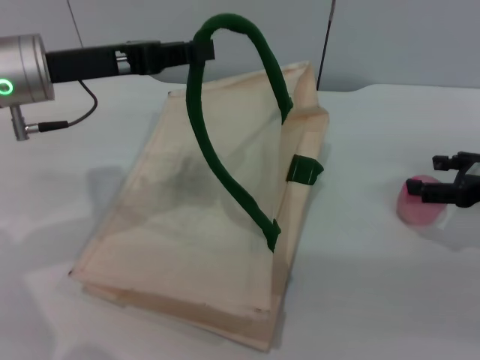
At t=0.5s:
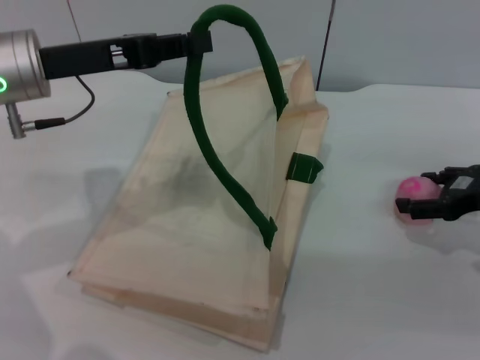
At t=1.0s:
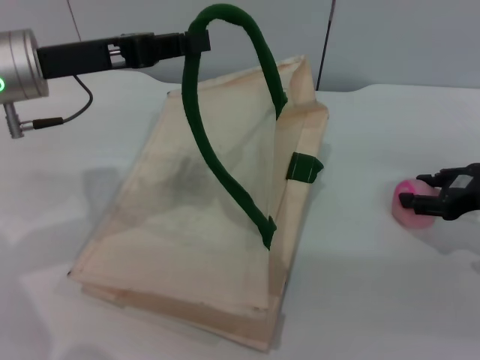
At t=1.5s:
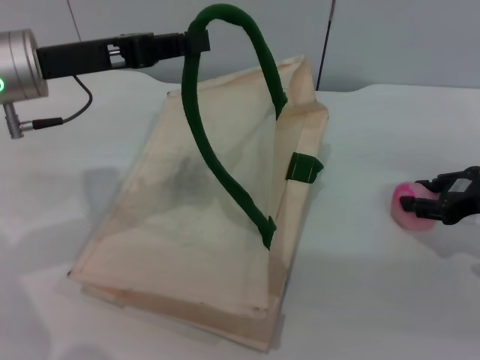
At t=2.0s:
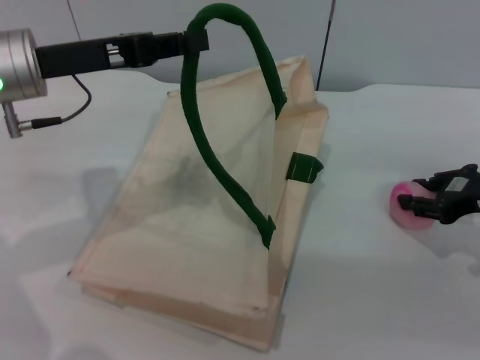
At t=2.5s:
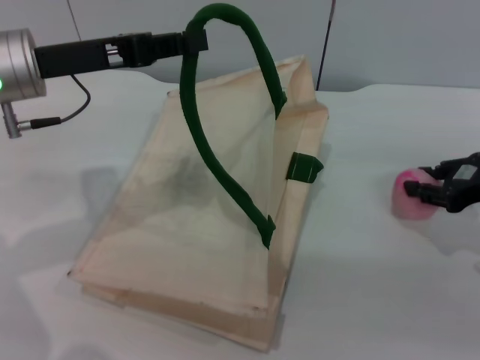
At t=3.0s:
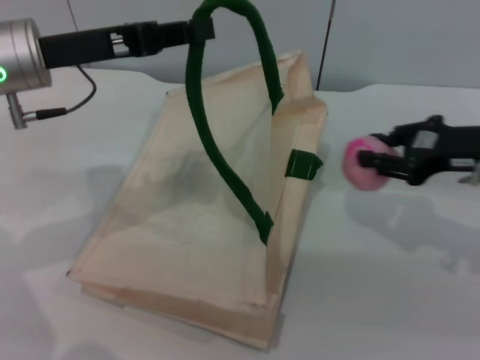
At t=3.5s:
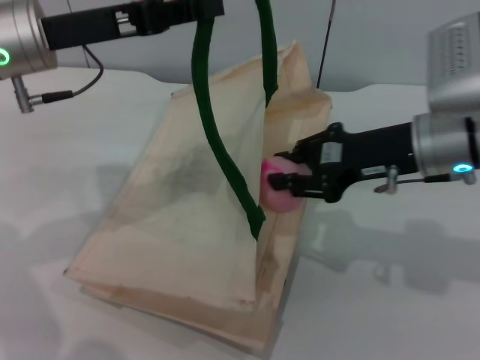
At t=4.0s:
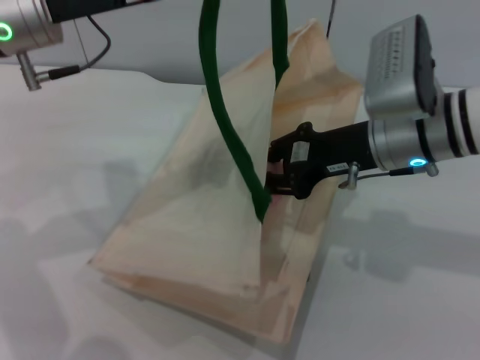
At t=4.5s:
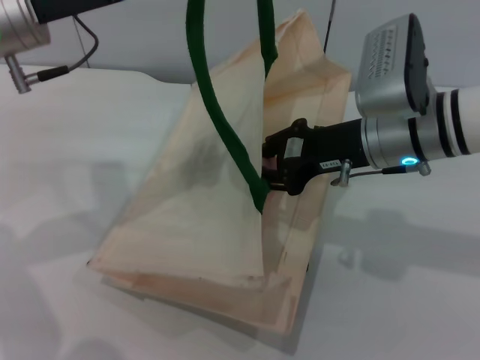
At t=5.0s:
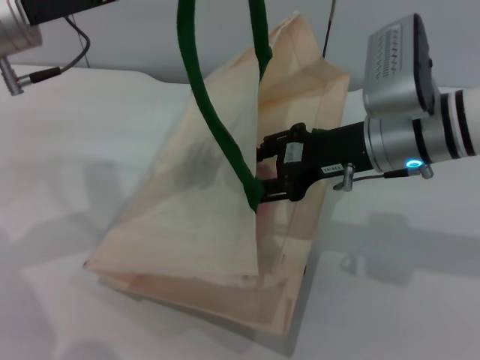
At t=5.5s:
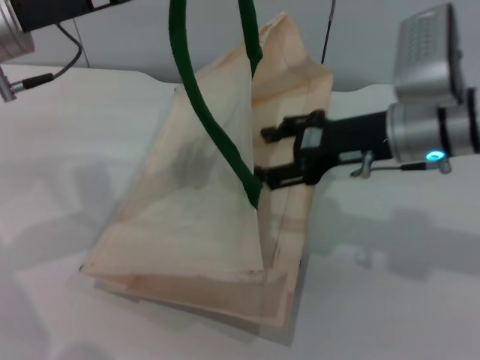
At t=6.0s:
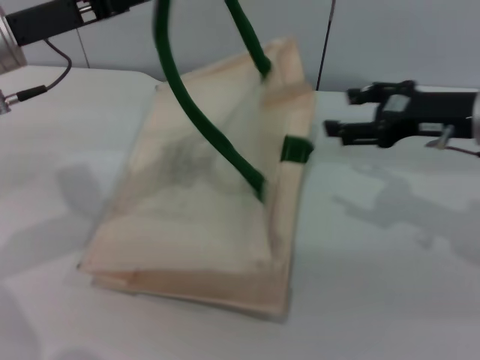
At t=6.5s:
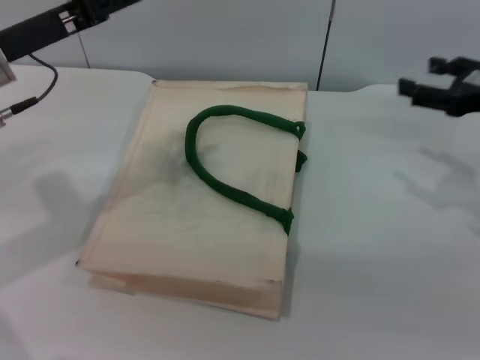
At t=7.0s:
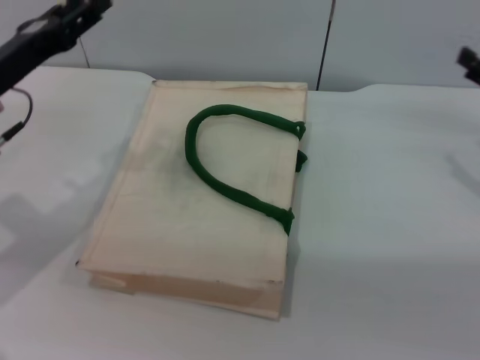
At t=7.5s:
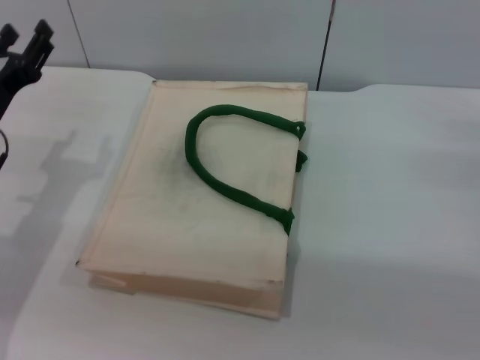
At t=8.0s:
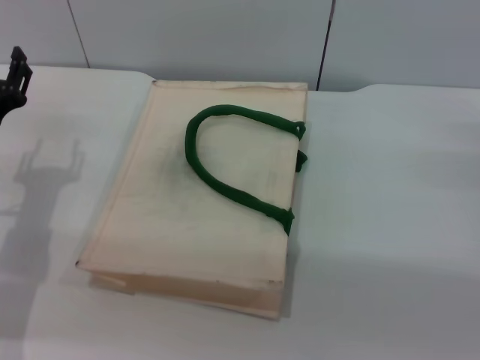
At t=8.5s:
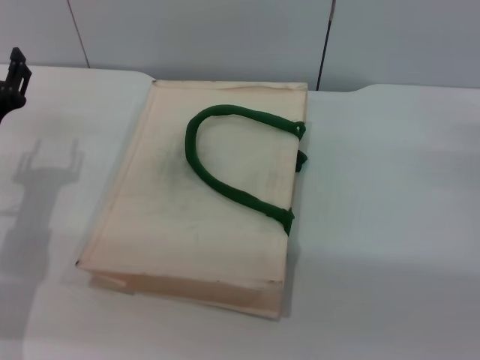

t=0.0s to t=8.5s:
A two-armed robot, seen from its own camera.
Task of the whole recording: pick up the peach from the table and place it in the white handbag.
Step, t=0.0s to t=2.5s: Pick up the peach with the right gripper.
Step, t=3.0s to t=5.5s: Place the peach into the woven bag with the right gripper.
t=0.0s to t=2.0s: The right gripper closes up.
t=2.0s to t=4.0s: The right gripper travels to the left by about 15 cm.
t=4.0s to t=6.5s: The right gripper travels to the right by roughly 15 cm, and opens up. Meanwhile the left gripper ends up approximately 5 cm from where it was, and opens up.
t=6.5s to t=8.5s: The right gripper shifts some 10 cm downward. The left gripper moves downward and backward, approximately 15 cm.
